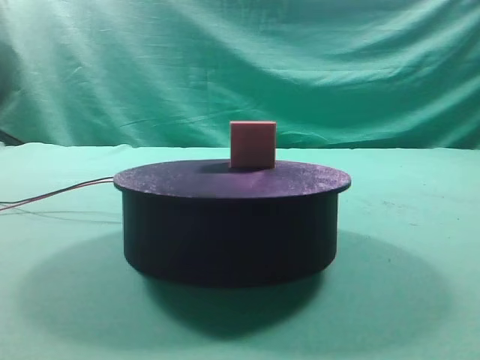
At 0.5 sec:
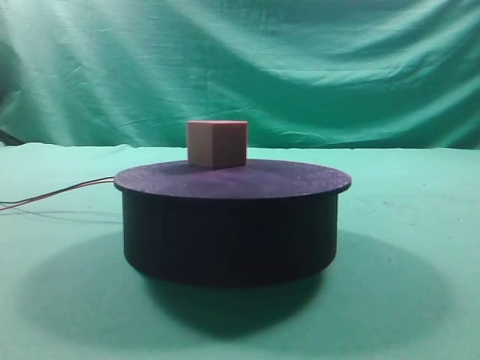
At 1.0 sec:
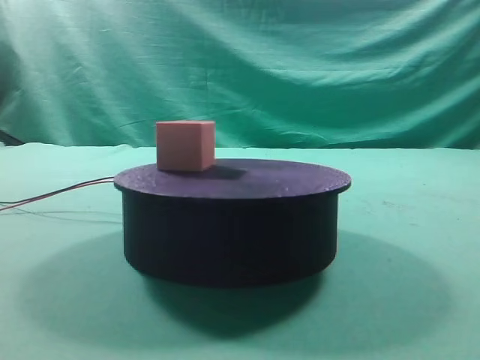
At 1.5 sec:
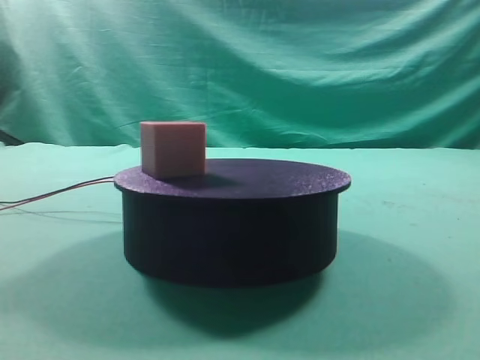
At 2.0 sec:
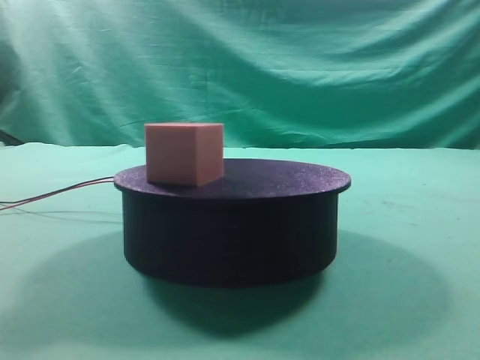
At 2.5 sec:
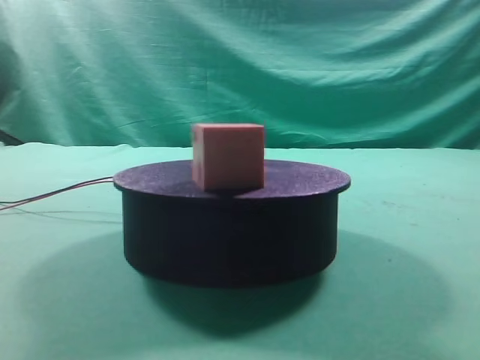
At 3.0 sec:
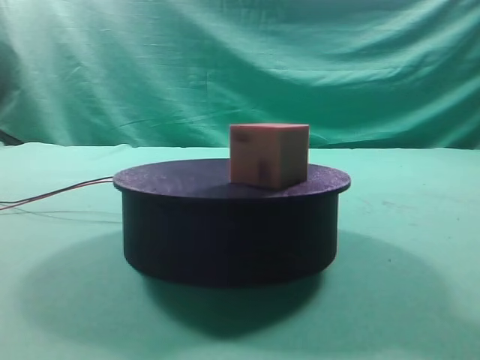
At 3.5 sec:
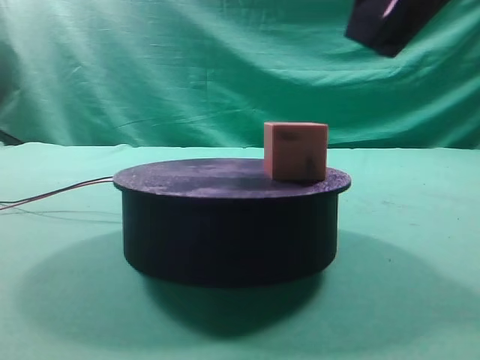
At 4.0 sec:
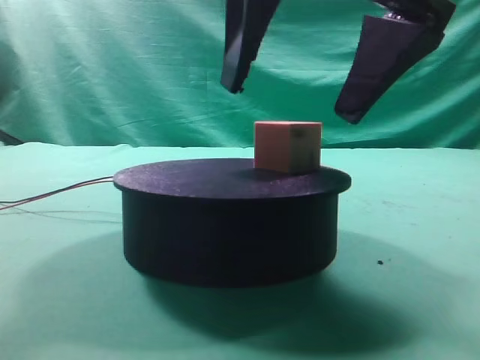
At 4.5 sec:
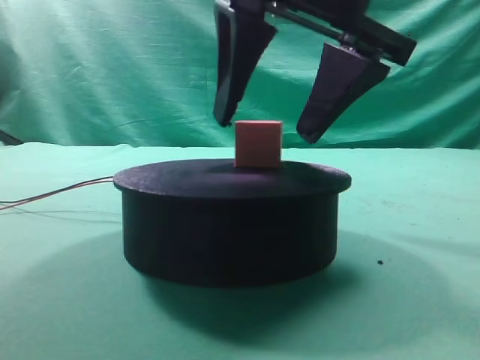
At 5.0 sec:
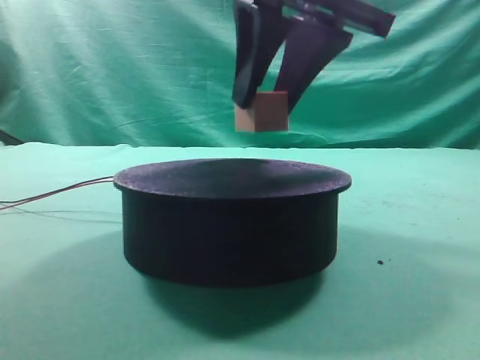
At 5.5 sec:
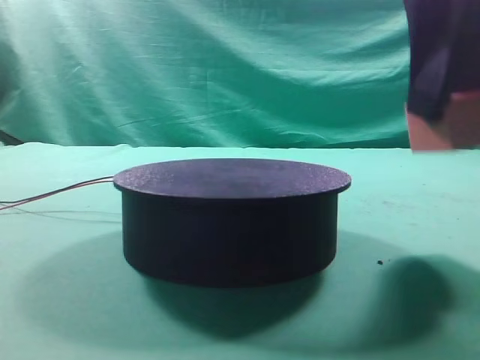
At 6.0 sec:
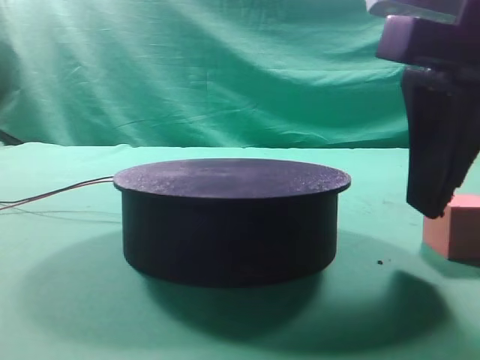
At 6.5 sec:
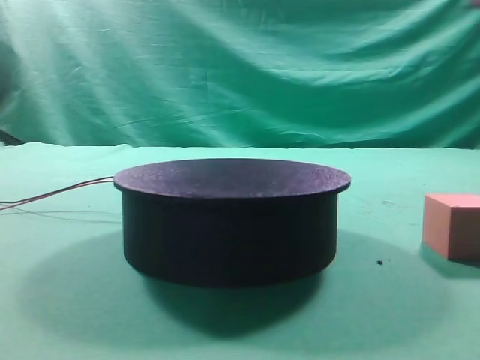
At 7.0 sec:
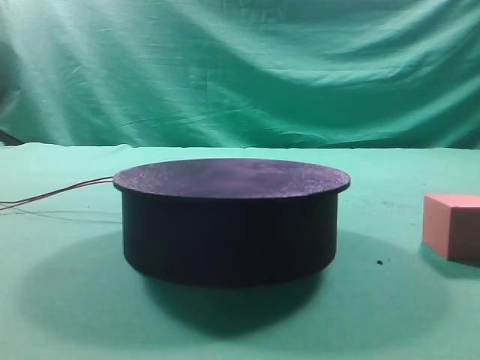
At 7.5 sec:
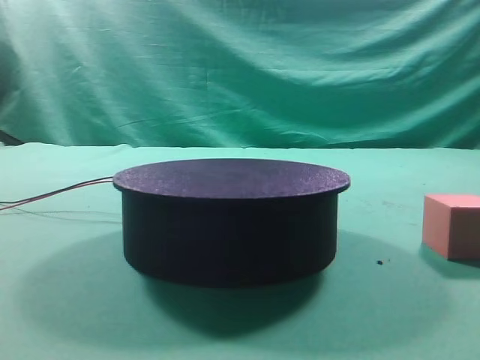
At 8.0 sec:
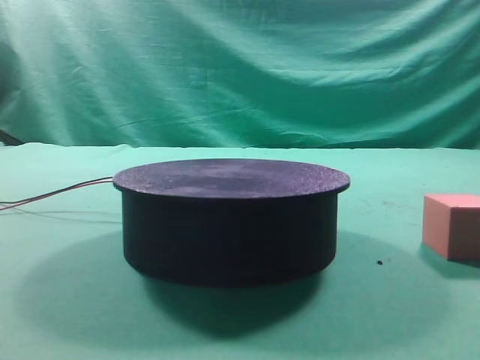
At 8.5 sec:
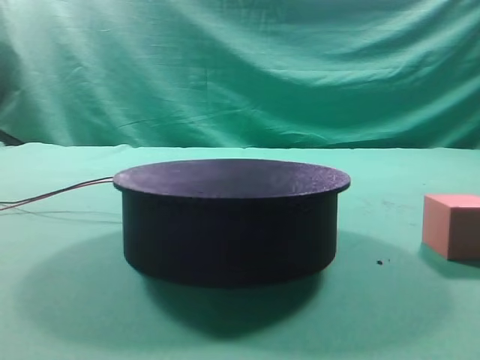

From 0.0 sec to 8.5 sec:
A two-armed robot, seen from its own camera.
Task of the whole recording: grasp the rotating cube-shaped block on the turntable and place it on the table.
Step, from 0.0 sec to 5.0 sec: Grasp the rotating cube-shaped block on the turntable.
Step, from 5.5 sec to 6.0 sec: Place the cube on the desk.

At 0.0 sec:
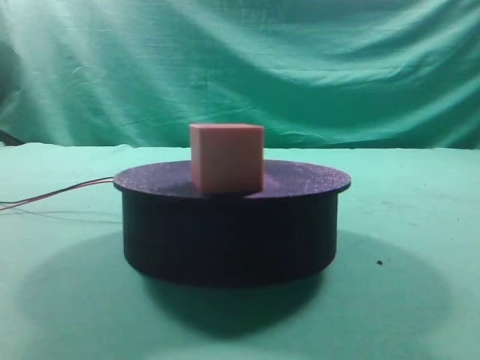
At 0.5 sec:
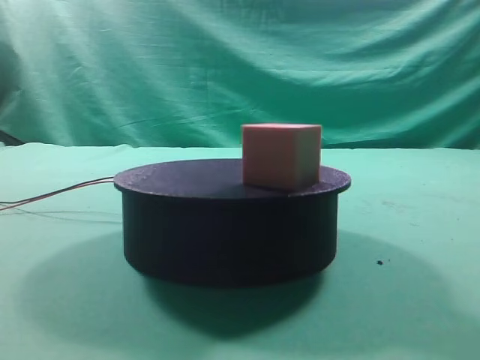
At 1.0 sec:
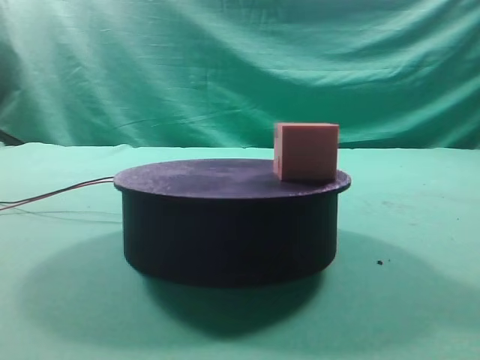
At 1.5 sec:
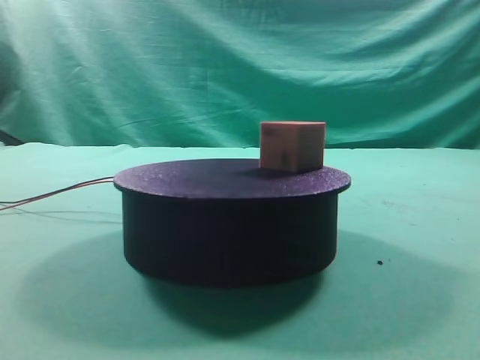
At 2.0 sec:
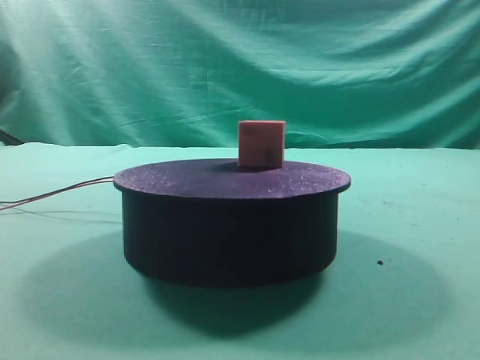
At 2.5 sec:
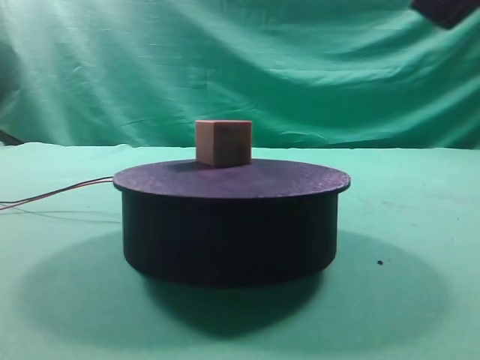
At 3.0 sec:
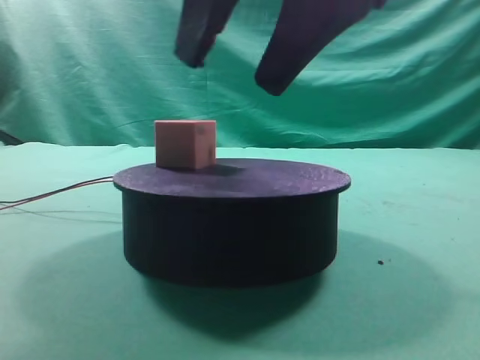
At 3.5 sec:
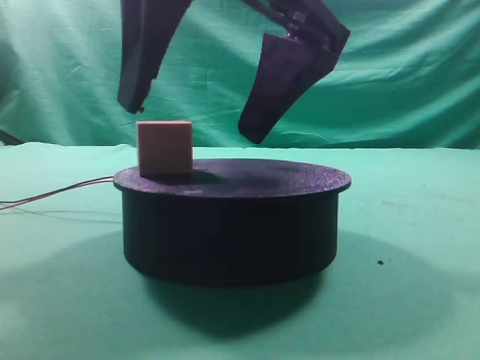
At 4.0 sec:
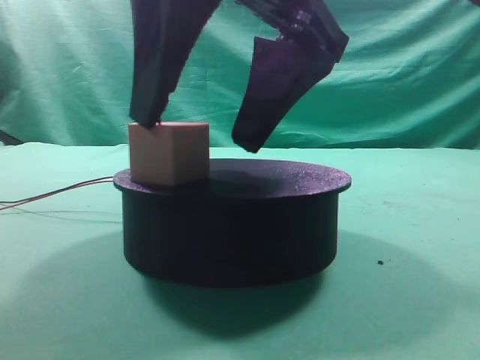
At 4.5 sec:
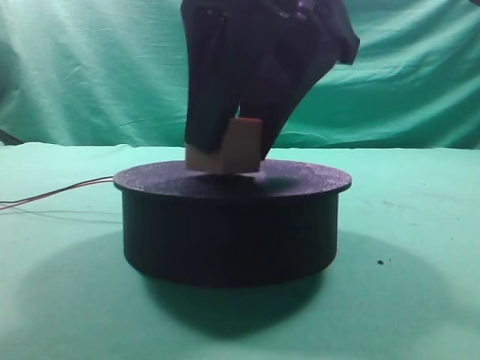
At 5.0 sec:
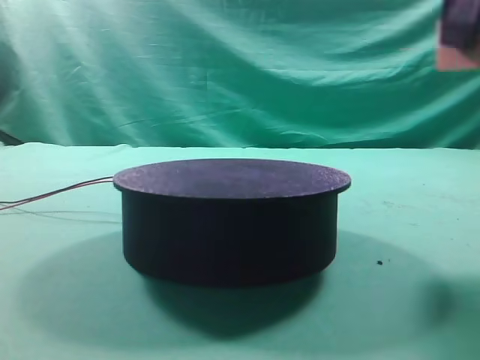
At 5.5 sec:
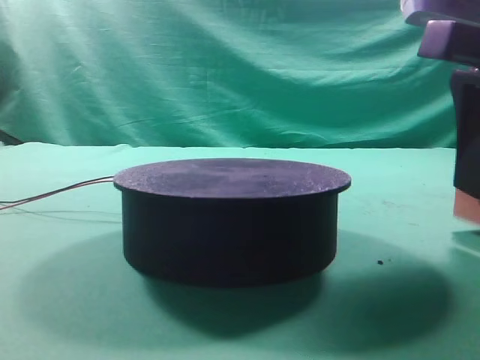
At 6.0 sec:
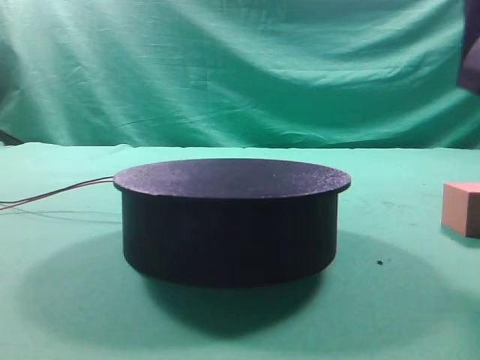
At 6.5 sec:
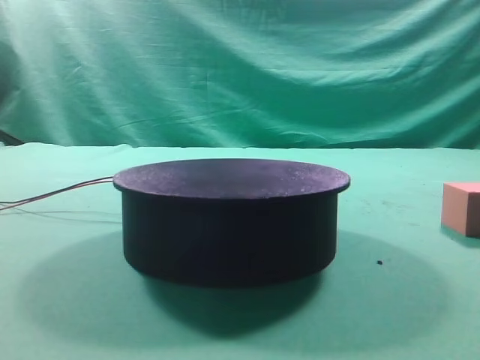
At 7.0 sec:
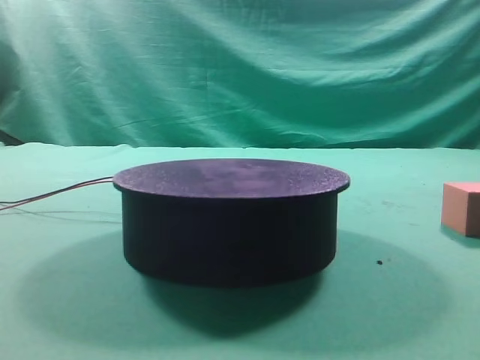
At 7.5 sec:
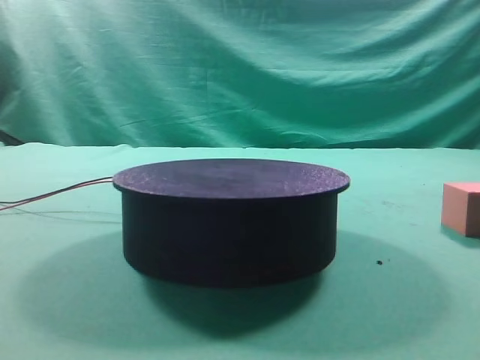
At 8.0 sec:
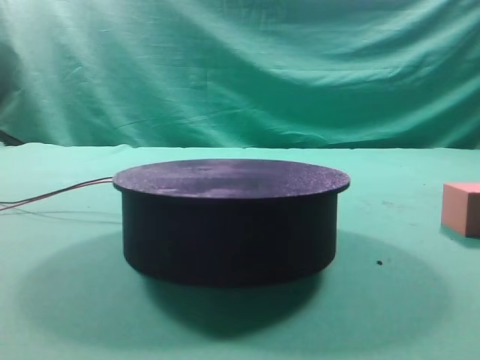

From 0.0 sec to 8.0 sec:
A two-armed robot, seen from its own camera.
Task of the whole recording: grasp the rotating cube-shaped block on the turntable and place it on the table.
Step, from 0.0 sec to 4.5 sec: Grasp the rotating cube-shaped block on the turntable.
Step, from 5.0 sec to 5.5 sec: Place the cube on the desk.

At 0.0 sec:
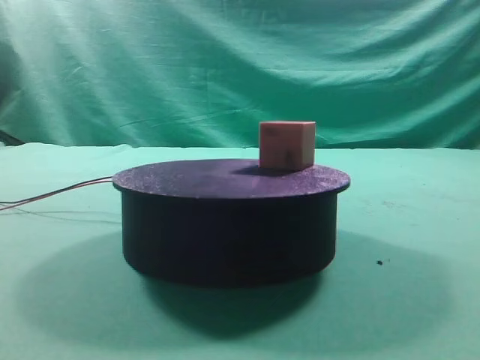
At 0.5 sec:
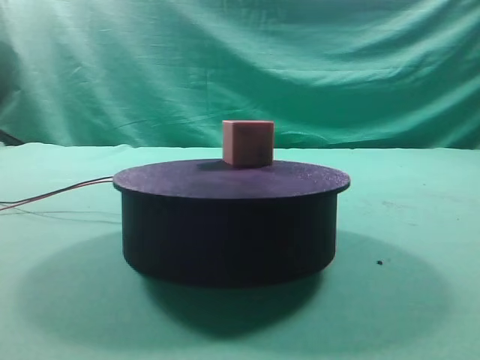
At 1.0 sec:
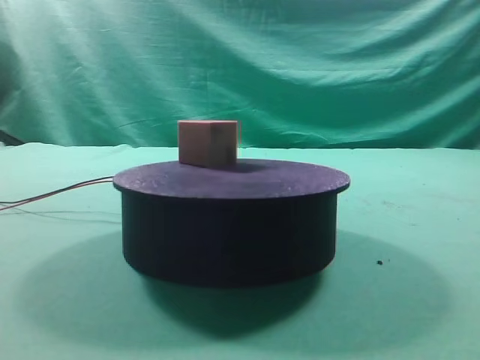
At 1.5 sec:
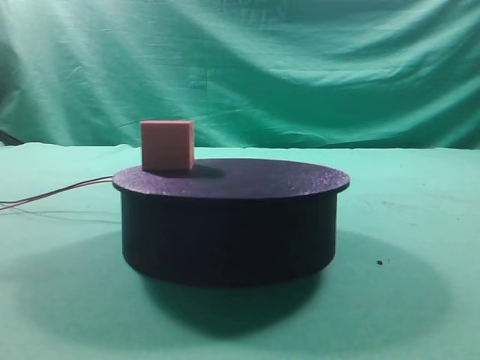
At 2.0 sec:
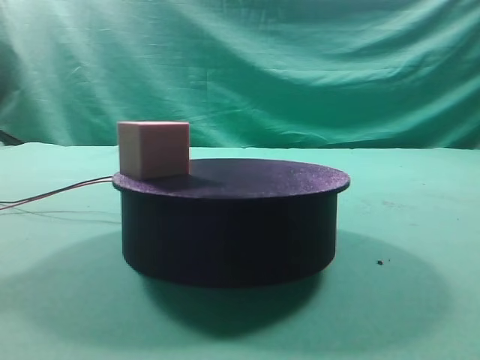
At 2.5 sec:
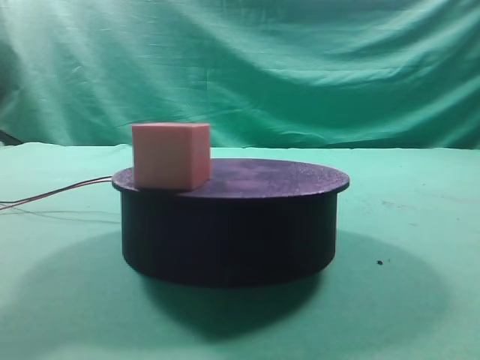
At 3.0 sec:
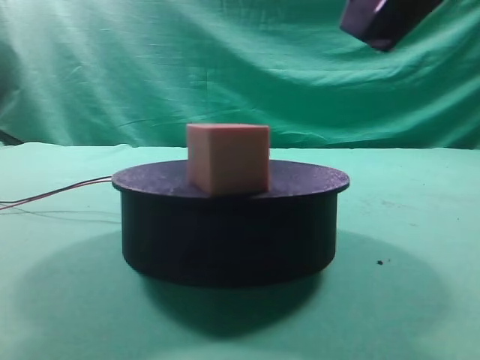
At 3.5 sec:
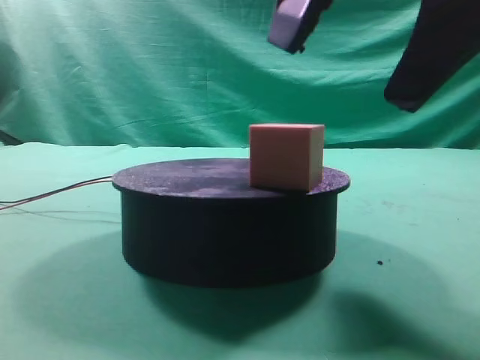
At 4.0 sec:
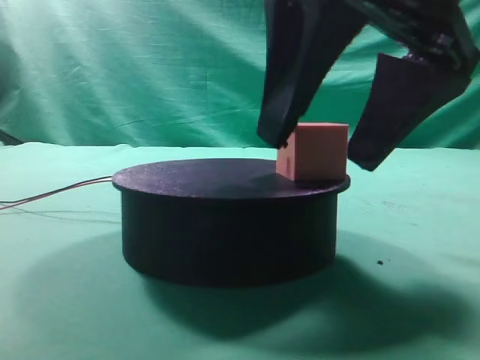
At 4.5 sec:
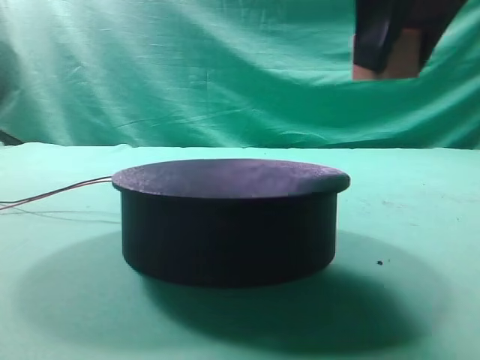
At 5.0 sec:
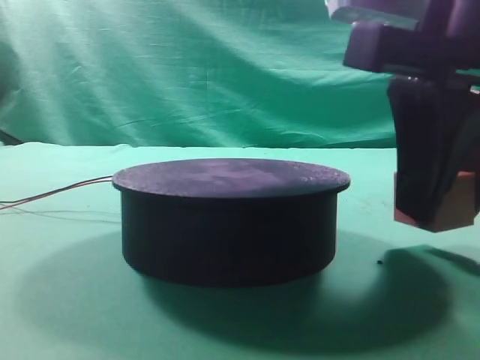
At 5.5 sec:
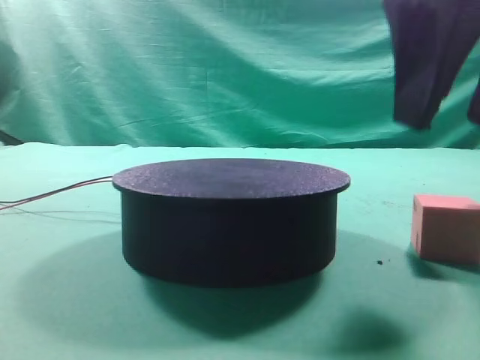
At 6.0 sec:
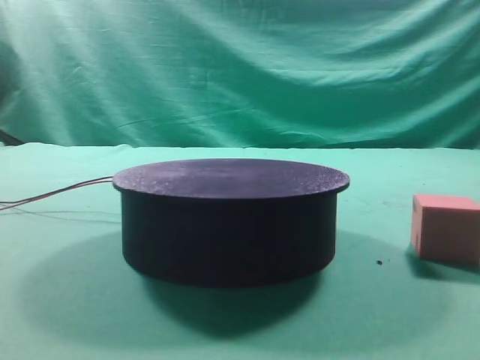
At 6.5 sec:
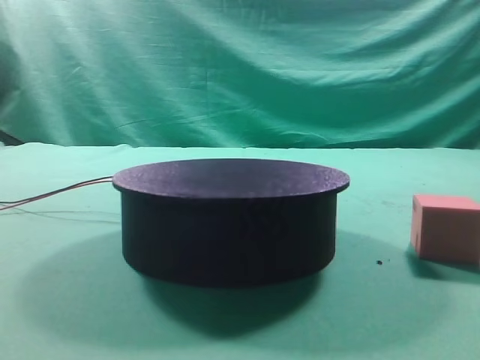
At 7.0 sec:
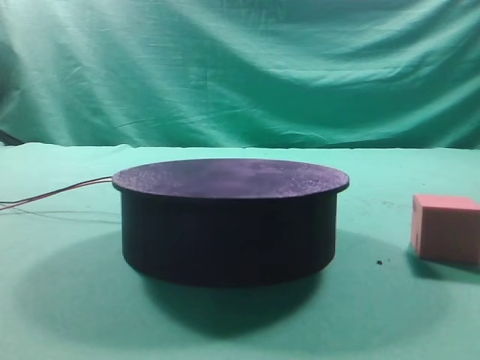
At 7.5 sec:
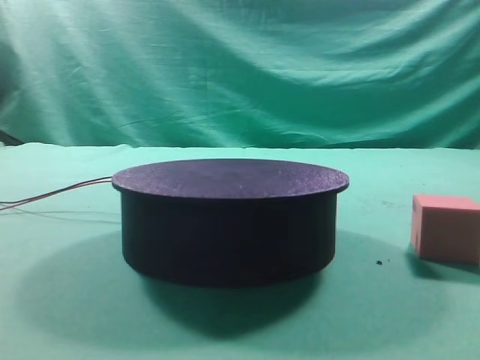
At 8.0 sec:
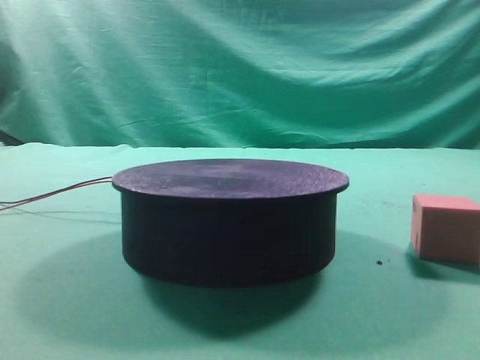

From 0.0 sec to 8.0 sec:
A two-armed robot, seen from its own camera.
Task of the whole recording: grasp the rotating cube-shaped block on the turntable and place it on the table.
Step, from 0.0 sec to 4.0 sec: Grasp the rotating cube-shaped block on the turntable.
Step, from 4.5 sec to 5.0 sec: Place the cube on the desk.
